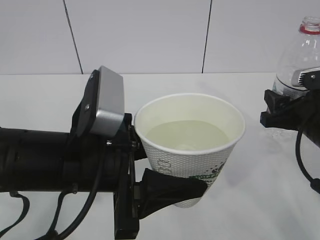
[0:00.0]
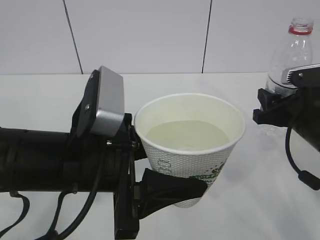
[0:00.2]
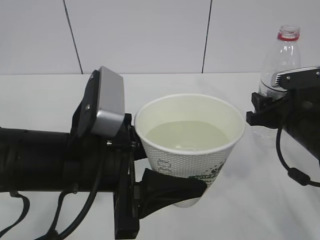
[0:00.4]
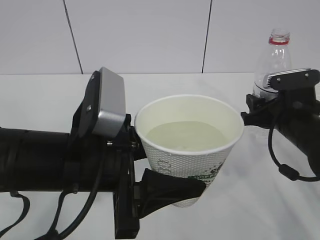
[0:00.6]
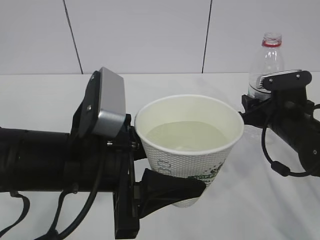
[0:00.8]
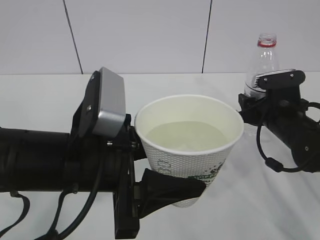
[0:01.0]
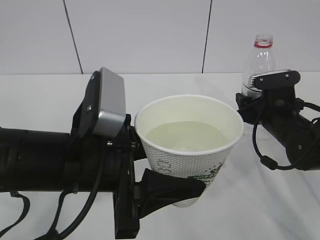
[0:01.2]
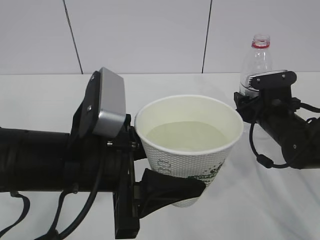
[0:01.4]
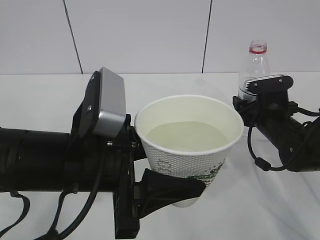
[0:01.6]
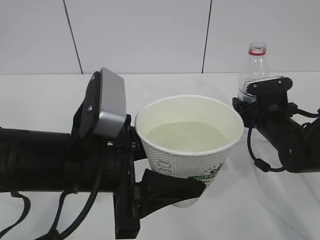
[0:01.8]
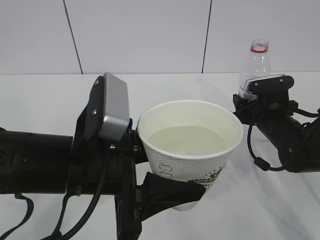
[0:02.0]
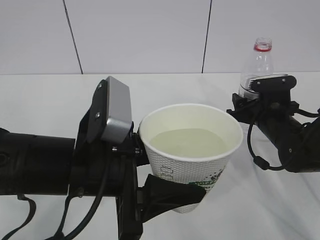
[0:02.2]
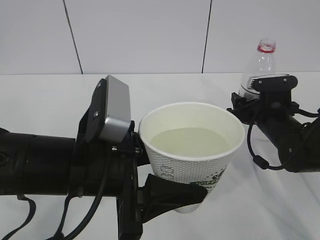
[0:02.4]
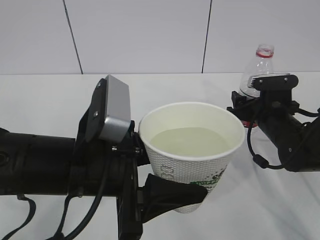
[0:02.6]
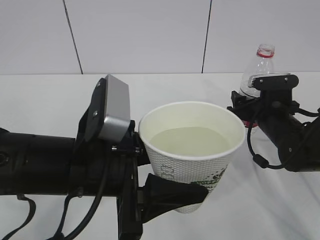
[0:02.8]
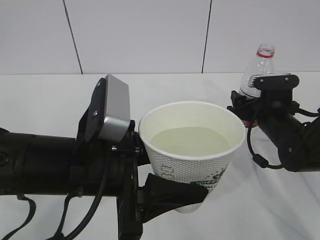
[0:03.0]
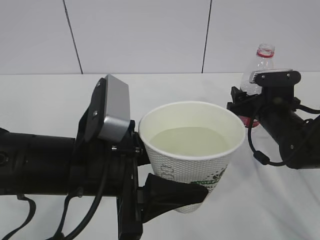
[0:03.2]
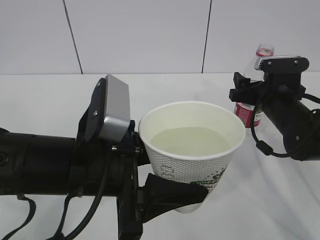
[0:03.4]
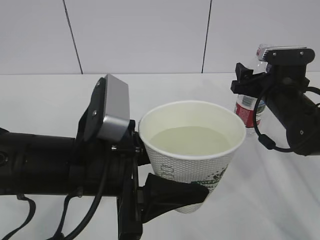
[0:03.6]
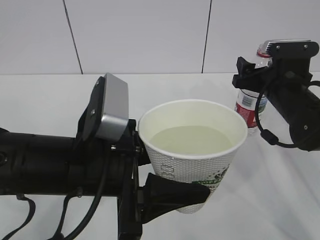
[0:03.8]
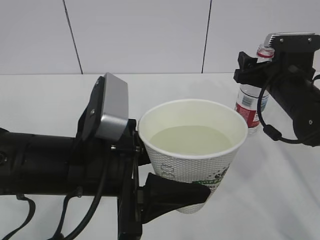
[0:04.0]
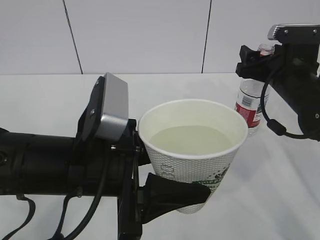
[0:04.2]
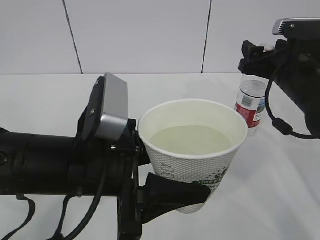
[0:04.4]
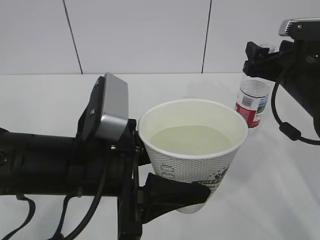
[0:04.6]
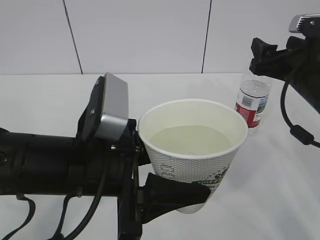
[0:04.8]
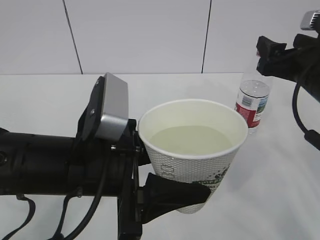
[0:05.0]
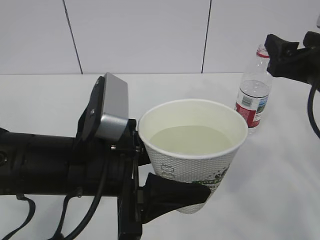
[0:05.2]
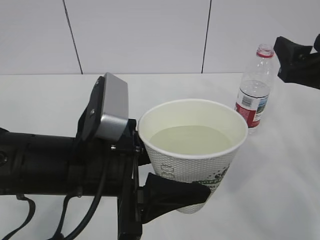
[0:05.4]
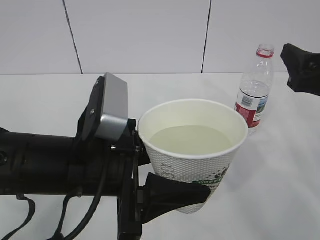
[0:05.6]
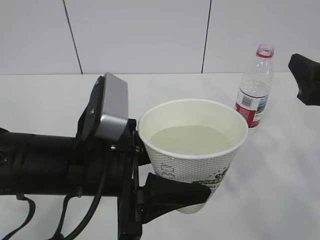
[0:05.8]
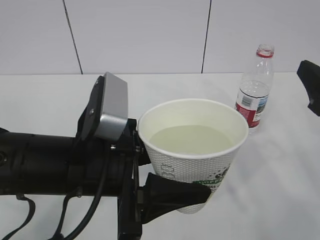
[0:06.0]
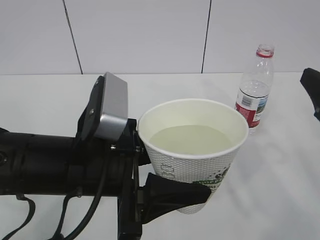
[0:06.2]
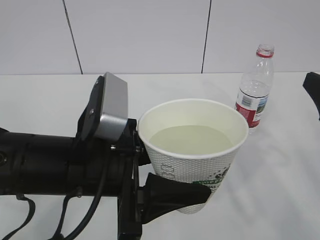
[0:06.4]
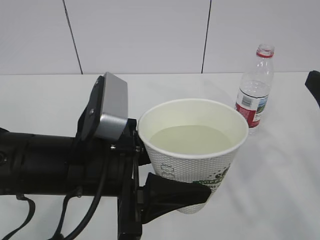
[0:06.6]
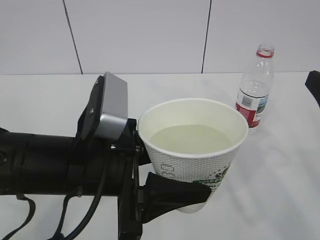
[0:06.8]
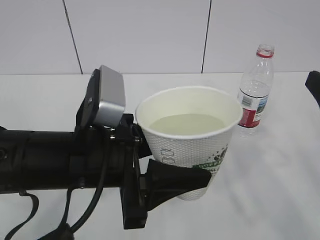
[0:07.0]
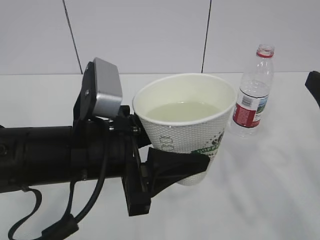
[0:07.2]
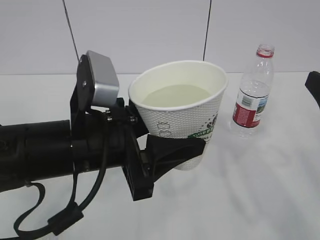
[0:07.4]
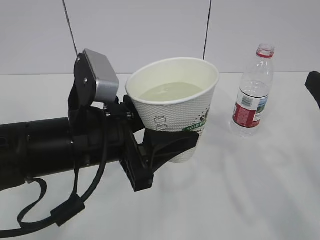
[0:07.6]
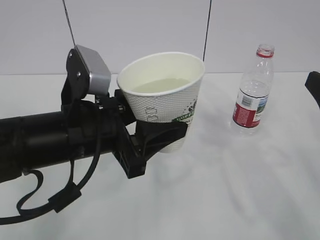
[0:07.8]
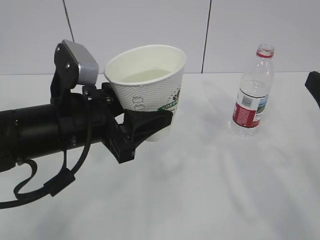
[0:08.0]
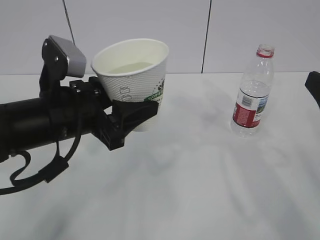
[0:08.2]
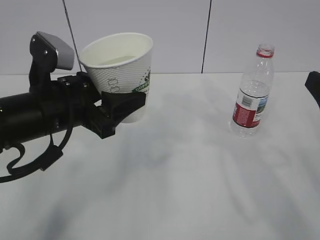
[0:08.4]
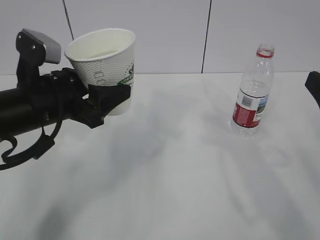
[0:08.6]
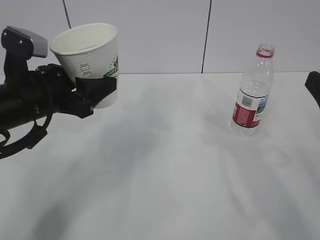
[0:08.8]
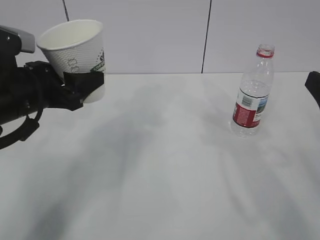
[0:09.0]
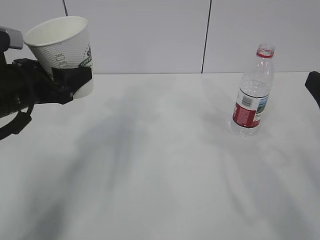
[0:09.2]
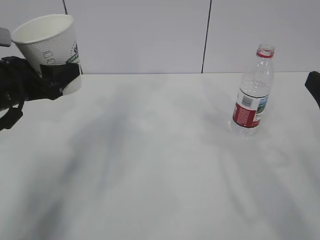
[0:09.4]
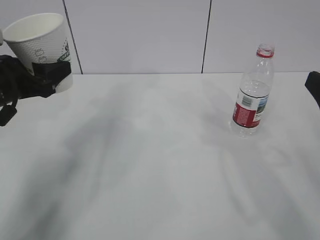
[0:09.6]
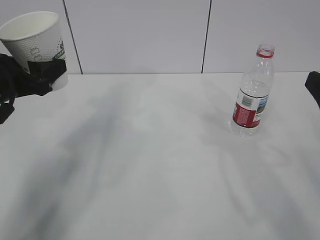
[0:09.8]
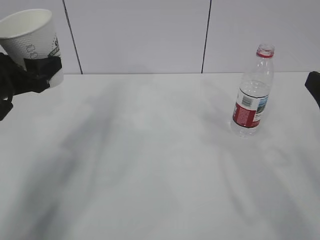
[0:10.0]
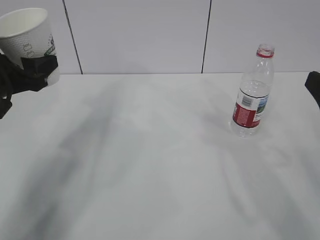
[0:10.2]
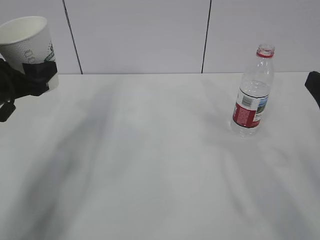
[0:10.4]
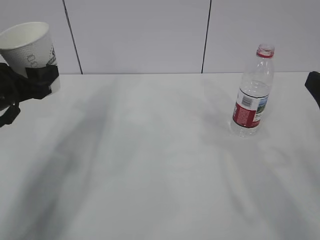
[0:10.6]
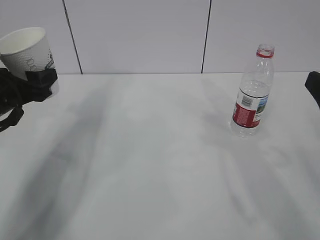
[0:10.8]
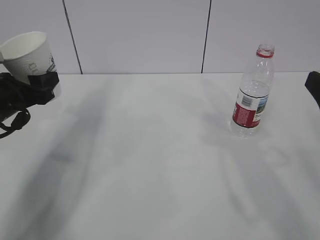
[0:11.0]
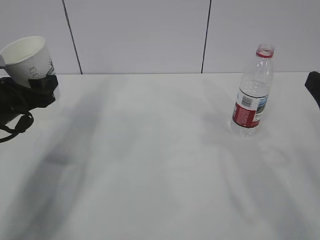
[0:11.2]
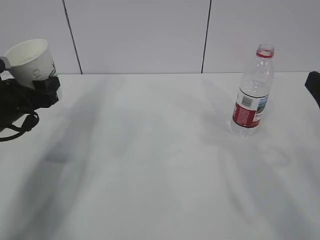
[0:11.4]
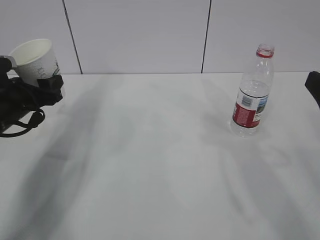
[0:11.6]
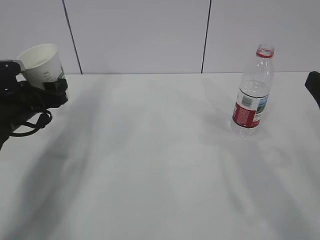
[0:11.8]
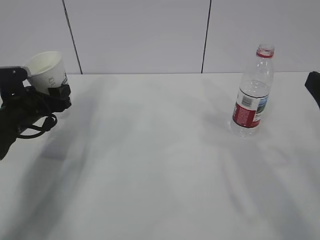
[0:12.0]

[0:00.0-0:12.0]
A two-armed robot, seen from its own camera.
0:00.0 to 0:01.6: The right gripper moves forward and downward, approximately 10 cm.
0:01.6 to 0:03.0: The right gripper opens up.
0:03.0 to 0:04.4: The right gripper is displaced upward by some 10 cm.
0:04.4 to 0:06.0: The right gripper shifts about 15 cm backward.
0:07.6 to 0:09.0: The left gripper goes approximately 15 cm to the left and forward.
0:09.0 to 0:10.4: The left gripper heads to the left, covering some 5 cm.
0:10.4 to 0:12.0: The left gripper is displaced downward and forward by approximately 10 cm.

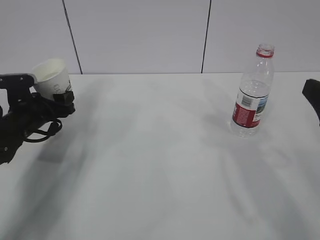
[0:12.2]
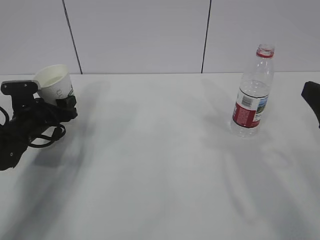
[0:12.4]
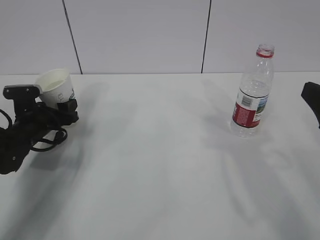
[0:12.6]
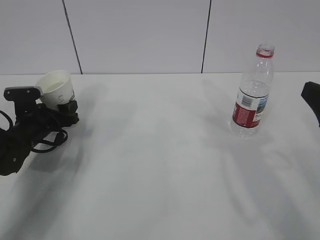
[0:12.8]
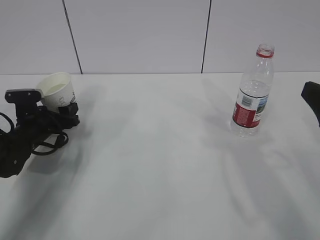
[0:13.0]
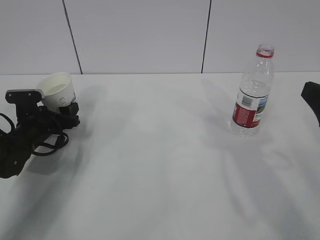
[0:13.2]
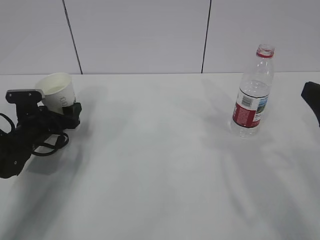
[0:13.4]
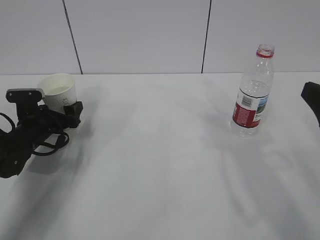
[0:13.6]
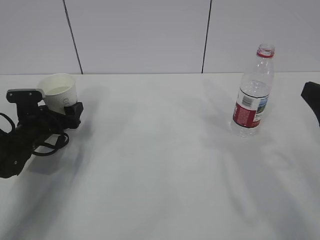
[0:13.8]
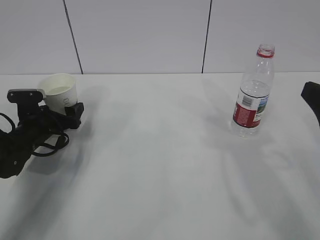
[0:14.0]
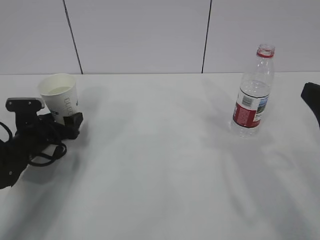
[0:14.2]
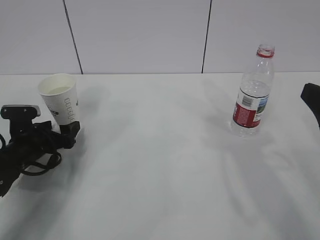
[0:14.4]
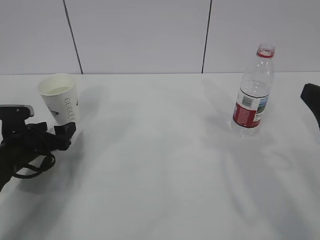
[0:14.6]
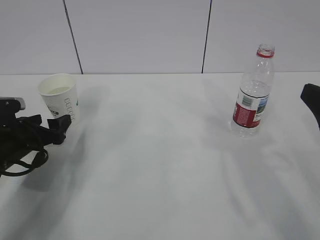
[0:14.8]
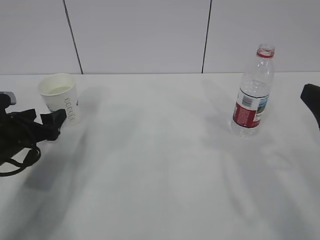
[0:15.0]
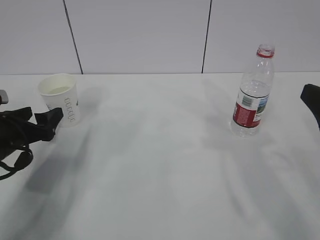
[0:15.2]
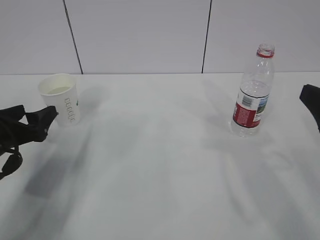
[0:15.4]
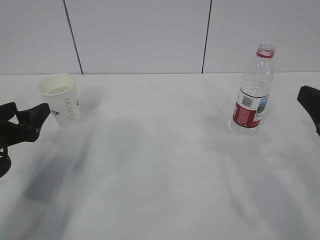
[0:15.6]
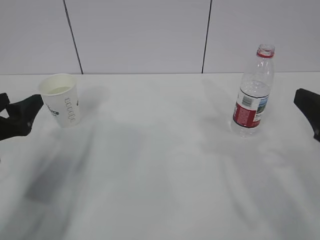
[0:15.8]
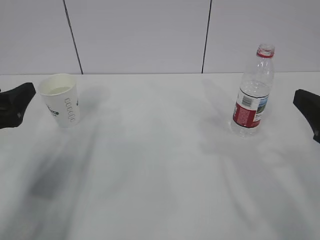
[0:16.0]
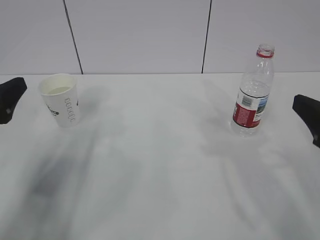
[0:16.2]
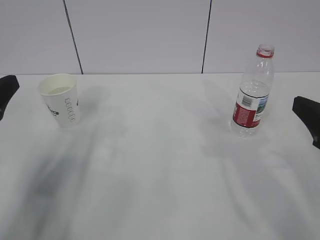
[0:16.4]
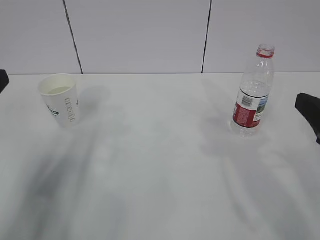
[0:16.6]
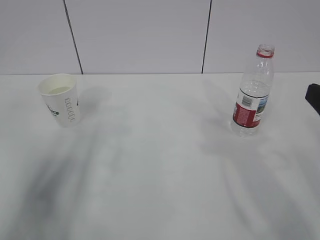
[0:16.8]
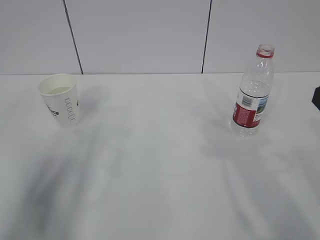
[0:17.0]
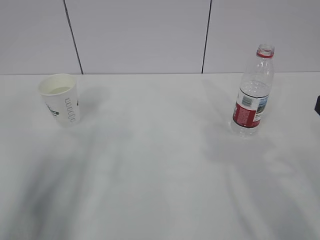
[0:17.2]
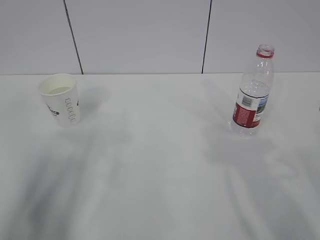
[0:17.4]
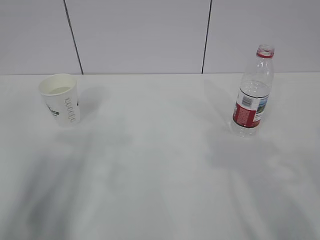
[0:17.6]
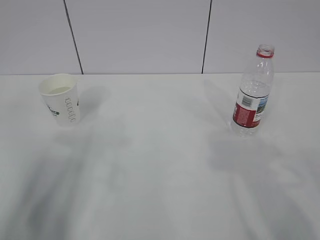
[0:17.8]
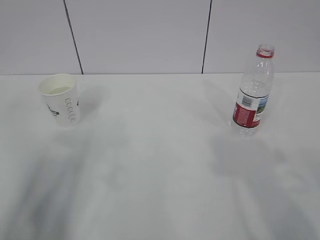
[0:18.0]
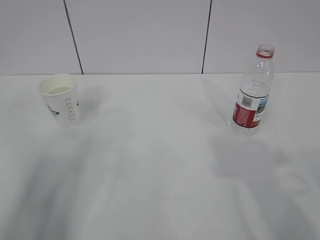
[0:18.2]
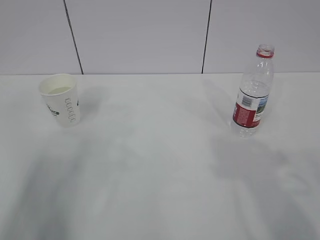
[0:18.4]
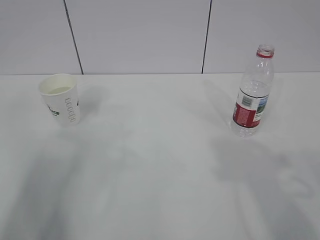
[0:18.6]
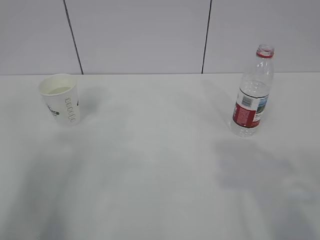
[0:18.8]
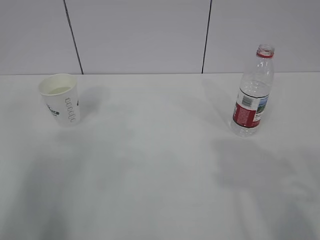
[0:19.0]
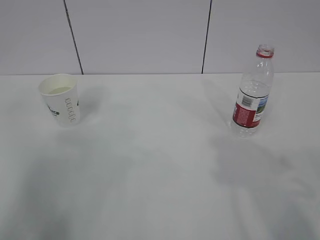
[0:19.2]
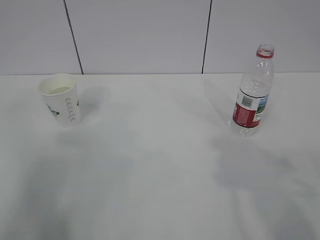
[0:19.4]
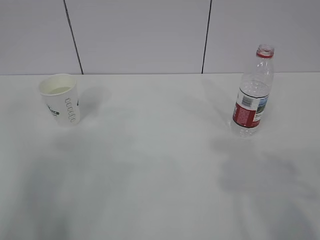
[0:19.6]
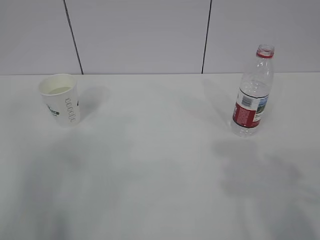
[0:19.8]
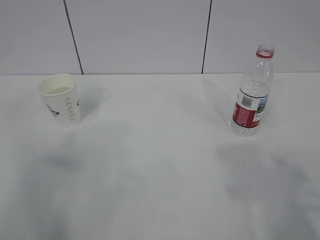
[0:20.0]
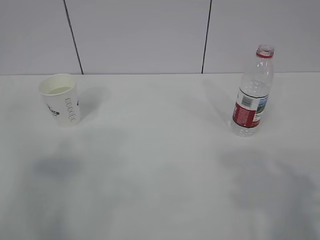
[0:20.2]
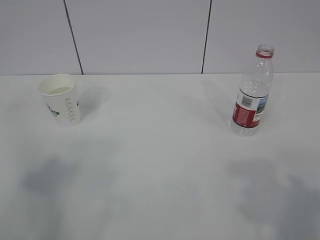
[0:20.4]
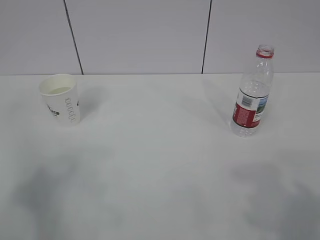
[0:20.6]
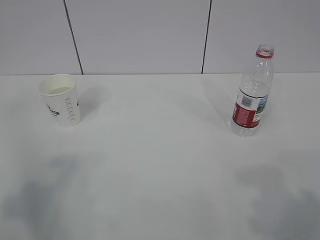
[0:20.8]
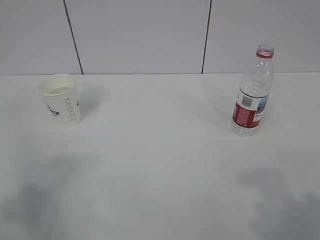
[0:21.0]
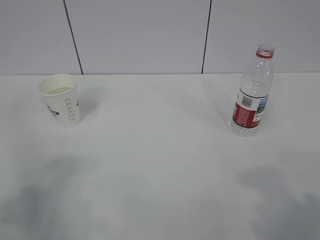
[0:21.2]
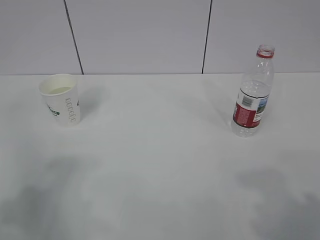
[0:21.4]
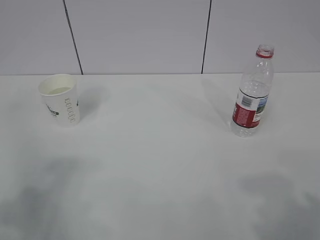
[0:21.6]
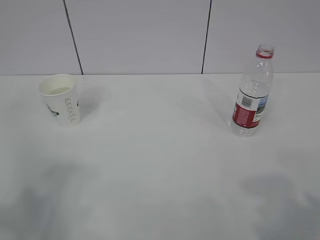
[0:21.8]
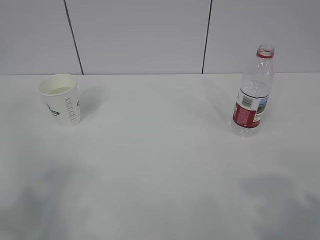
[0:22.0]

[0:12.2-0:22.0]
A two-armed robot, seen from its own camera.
0:12.2 to 0:13.6: The left gripper opens up.
0:13.6 to 0:15.0: The left gripper moves backward and upward, some 10 cm.
0:15.0 to 0:16.4: The left gripper heads upward and backward, covering some 15 cm.
0:16.4 to 0:17.8: The right gripper moves backward, about 5 cm. The left gripper goes roughly 10 cm backward and upward.
0:17.8 to 0:19.2: The left gripper shifts some 10 cm upward.

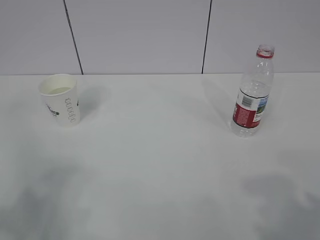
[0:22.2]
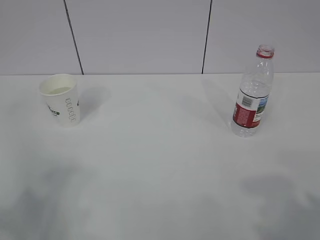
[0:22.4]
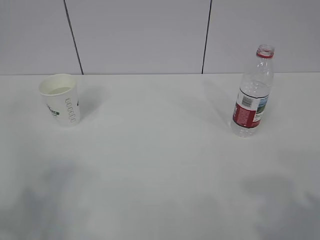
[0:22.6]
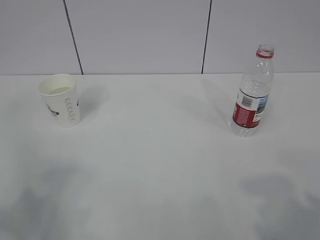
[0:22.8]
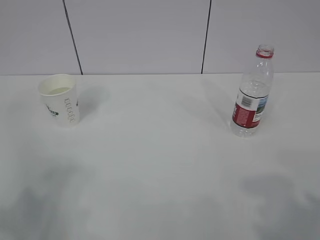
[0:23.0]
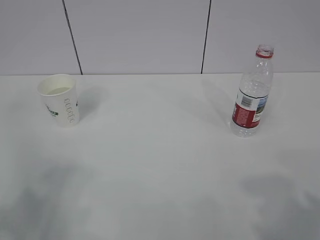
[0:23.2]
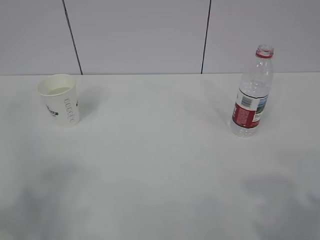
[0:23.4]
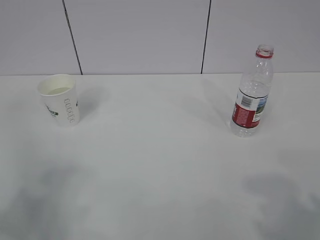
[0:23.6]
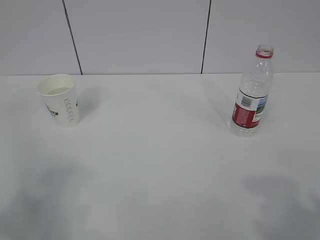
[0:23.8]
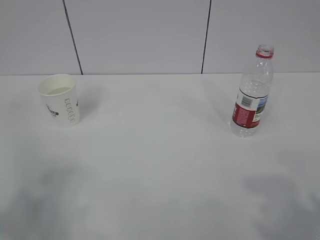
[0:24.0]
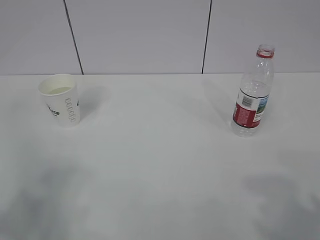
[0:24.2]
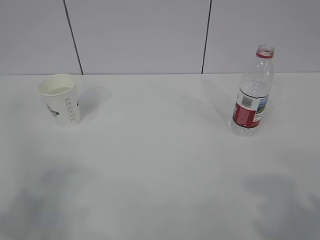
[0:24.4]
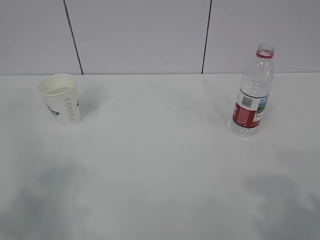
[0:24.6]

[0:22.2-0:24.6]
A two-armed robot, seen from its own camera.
0:22.2 to 0:23.4: Both grippers stay about where they are.
0:23.4 to 0:24.6: Both grippers stay about where they are.
